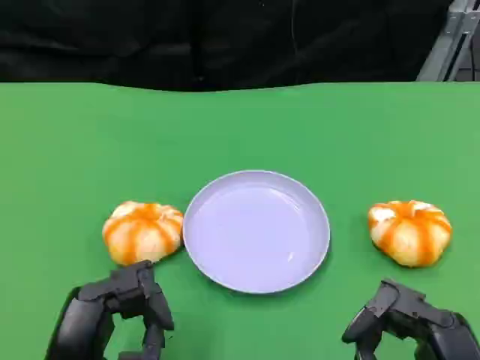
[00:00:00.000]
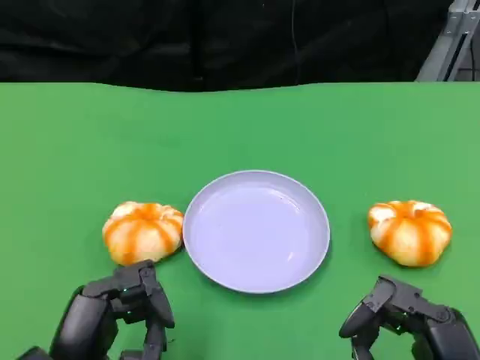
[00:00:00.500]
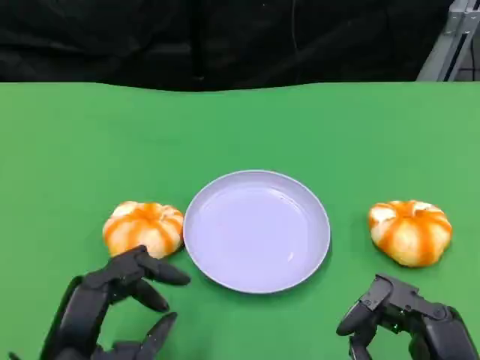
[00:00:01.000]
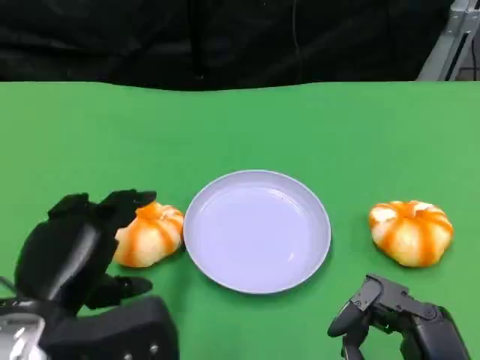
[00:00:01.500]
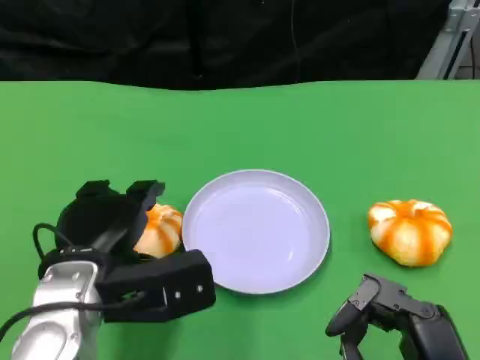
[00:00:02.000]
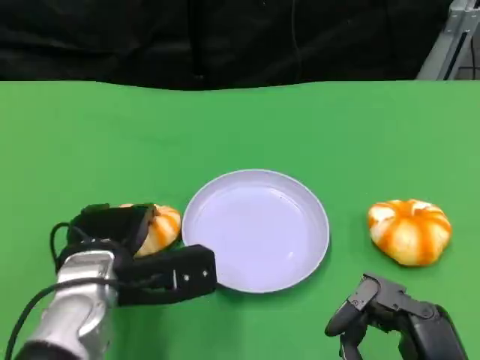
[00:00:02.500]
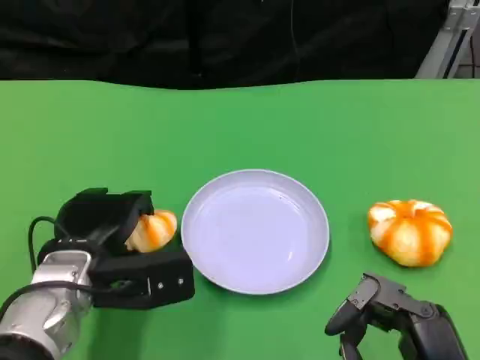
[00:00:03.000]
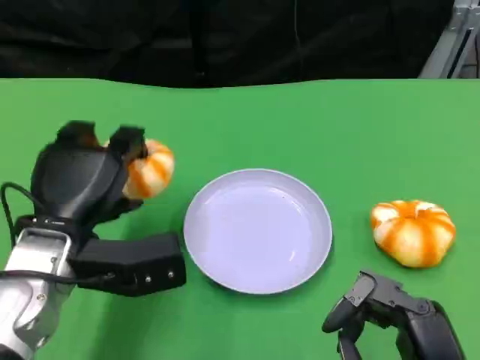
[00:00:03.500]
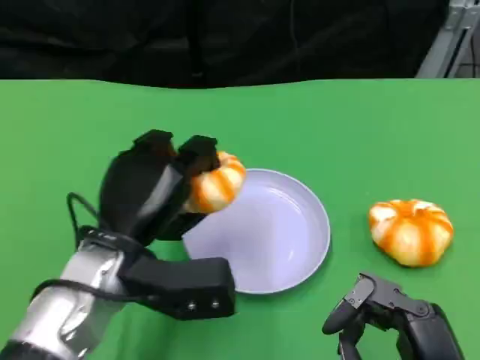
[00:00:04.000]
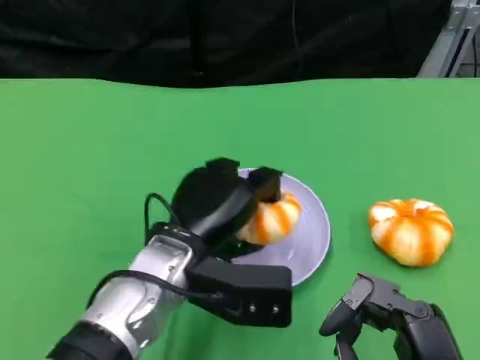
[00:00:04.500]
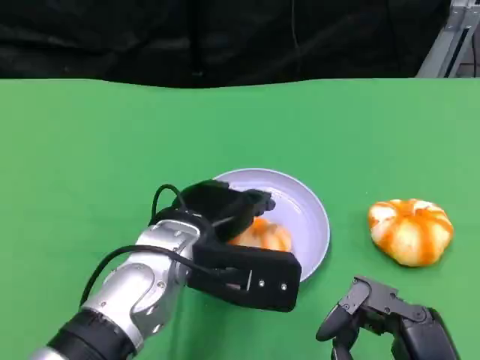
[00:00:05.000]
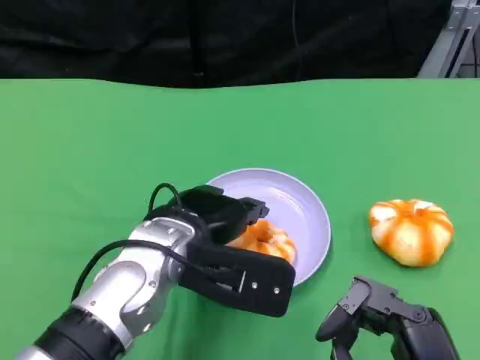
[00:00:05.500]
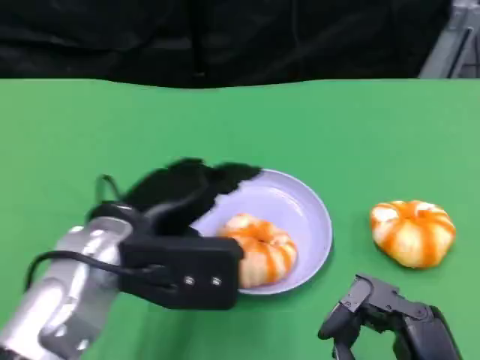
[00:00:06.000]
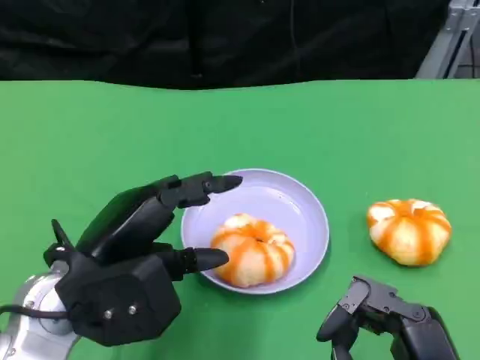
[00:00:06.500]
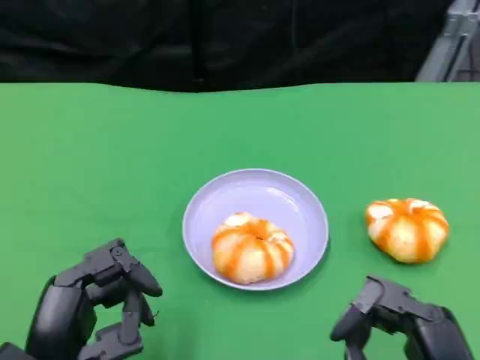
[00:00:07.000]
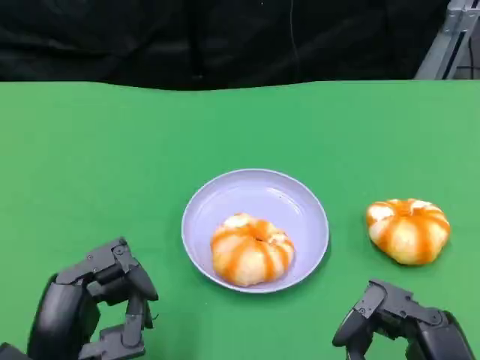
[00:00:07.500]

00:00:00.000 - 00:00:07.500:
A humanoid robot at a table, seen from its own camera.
Task of the whole recording: Grasp the bread from the table and place it into the plate.
00:00:00.000 - 00:00:02.000: The left hand moves forward, some 10 cm.
00:00:05.500 - 00:00:07.500: The left hand is displaced backward and to the left by roughly 15 cm.

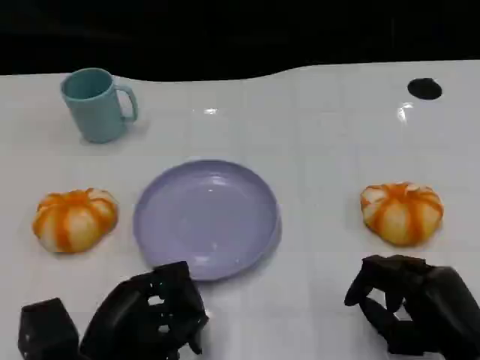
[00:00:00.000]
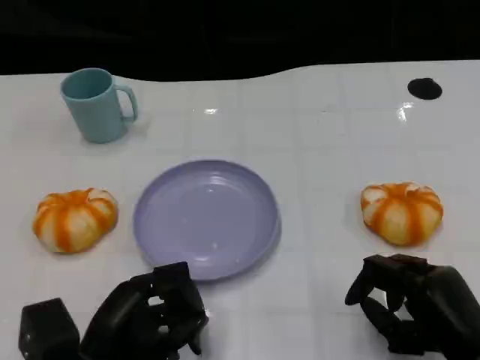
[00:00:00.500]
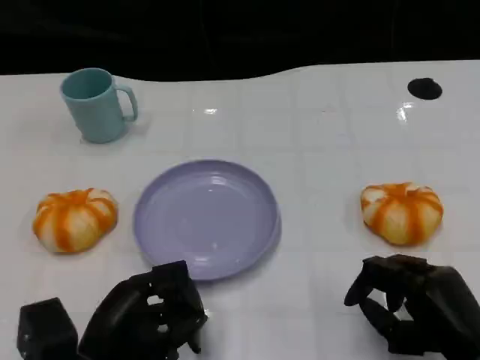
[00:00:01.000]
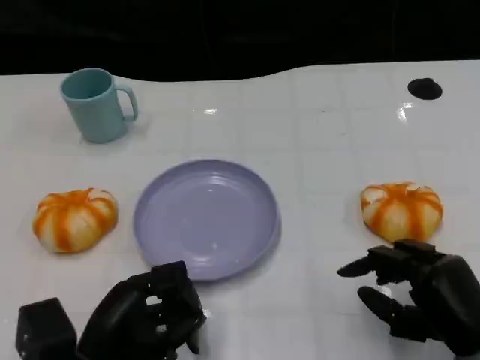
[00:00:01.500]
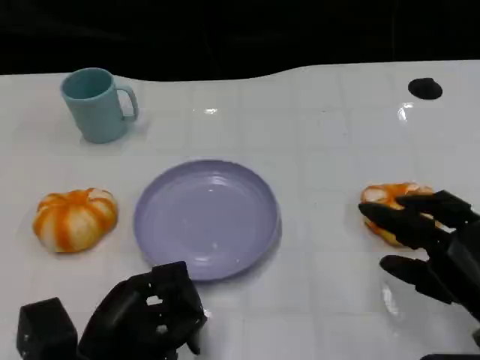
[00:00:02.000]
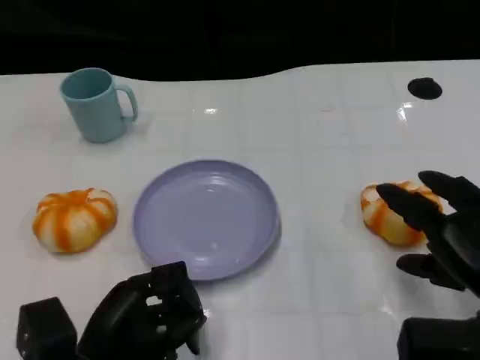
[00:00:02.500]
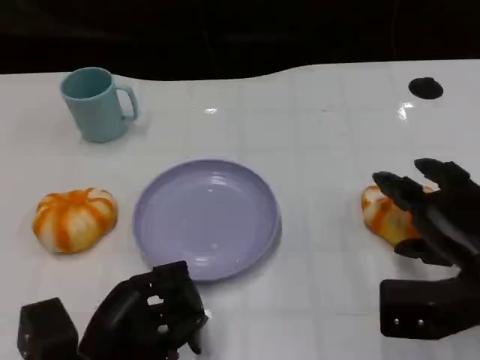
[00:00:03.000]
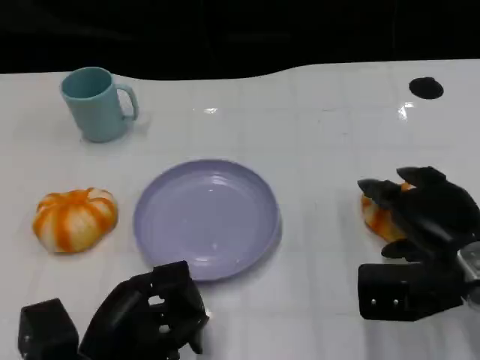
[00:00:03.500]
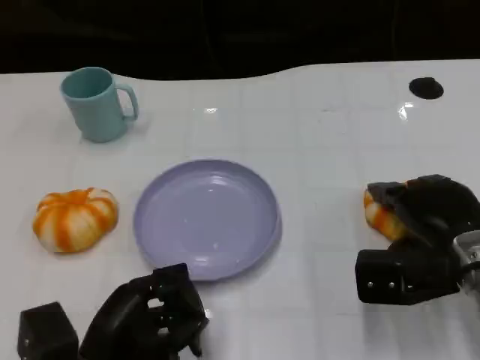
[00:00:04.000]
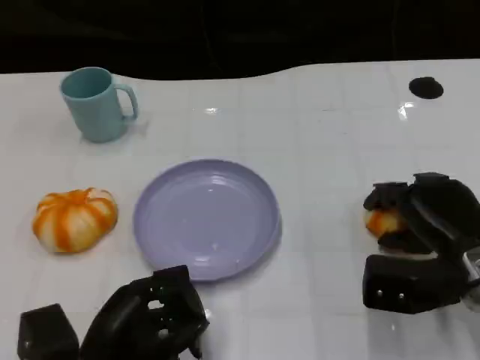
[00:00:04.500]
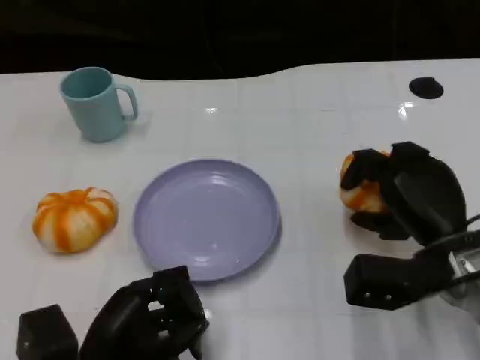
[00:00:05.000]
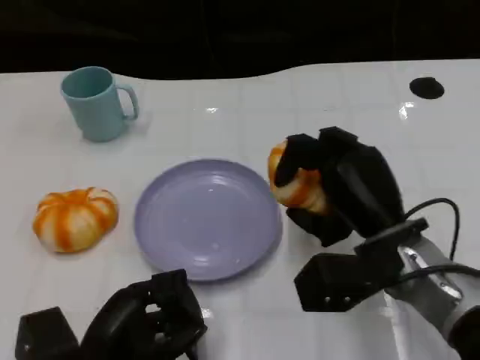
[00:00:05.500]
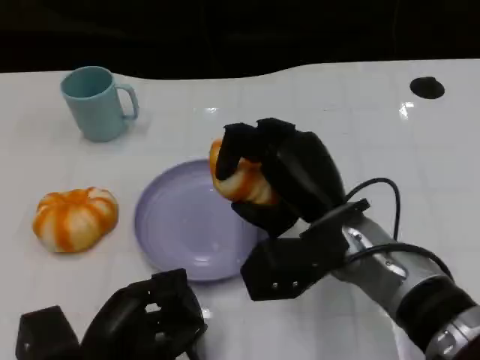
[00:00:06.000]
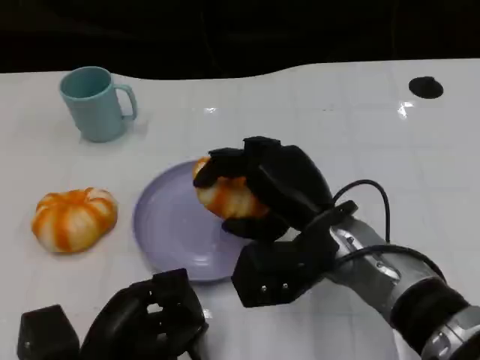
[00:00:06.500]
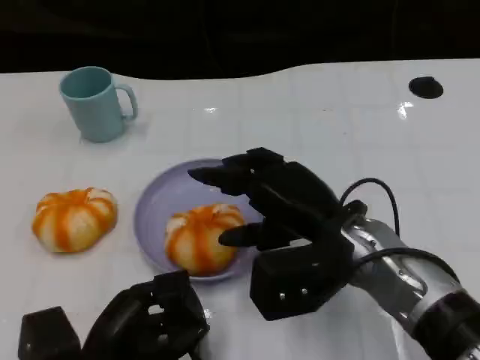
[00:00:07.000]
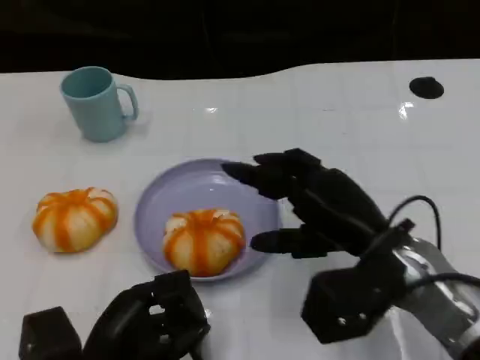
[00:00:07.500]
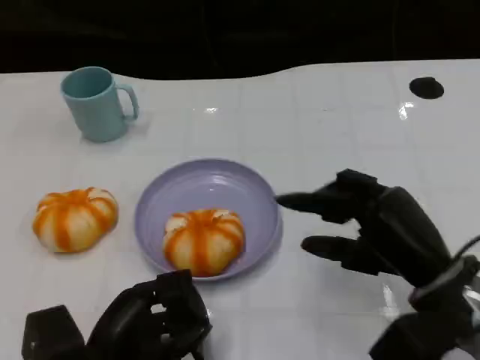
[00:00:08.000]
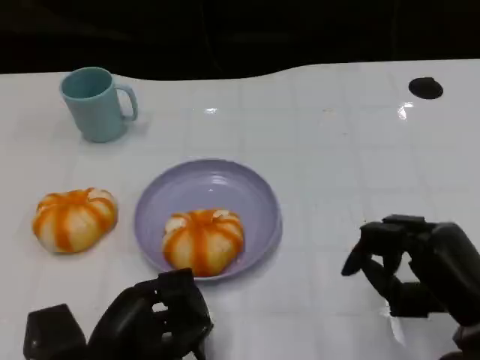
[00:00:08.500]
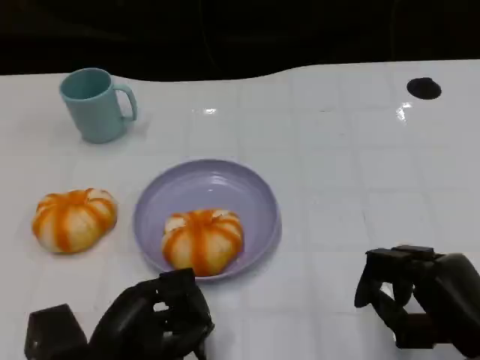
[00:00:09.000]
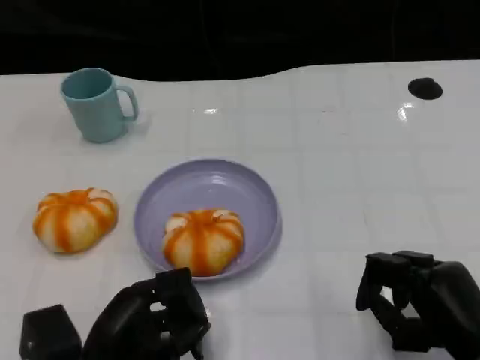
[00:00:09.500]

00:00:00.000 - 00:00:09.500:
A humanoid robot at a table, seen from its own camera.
Task of the whole recording: Grasp the bread from the table and place it into the plate.
00:00:00.000 - 00:00:02.000: The right hand shifts by about 5 cm.
00:00:02.000 - 00:00:04.000: The right hand goes some 10 cm forward.
00:00:04.000 - 00:00:05.500: The right hand shifts some 10 cm to the left.
00:00:07.500 - 00:00:09.500: The right hand travels to the right, backward and downward by about 15 cm.

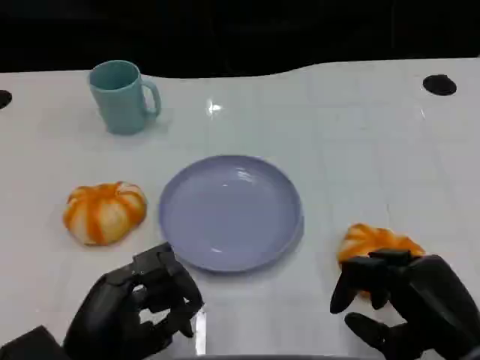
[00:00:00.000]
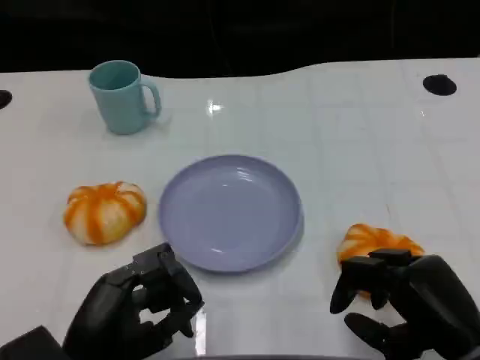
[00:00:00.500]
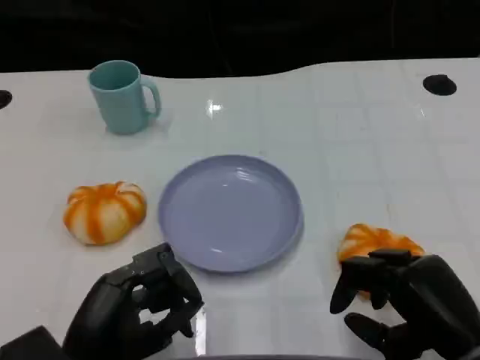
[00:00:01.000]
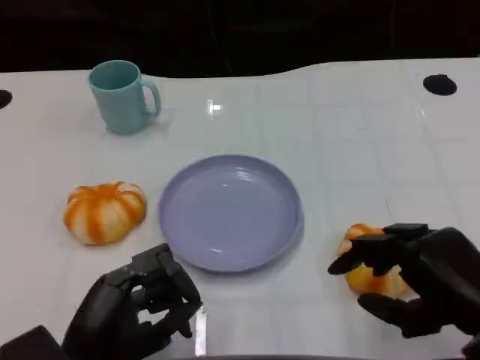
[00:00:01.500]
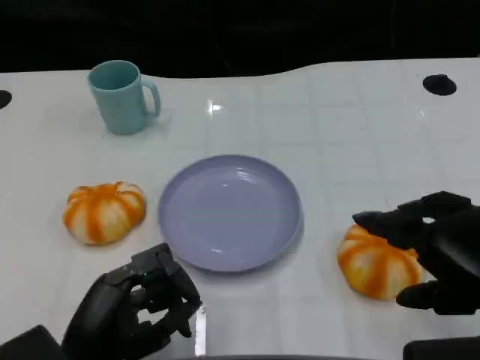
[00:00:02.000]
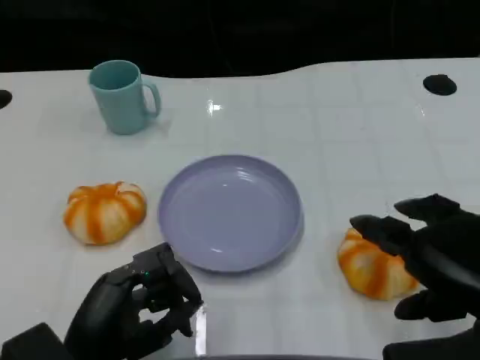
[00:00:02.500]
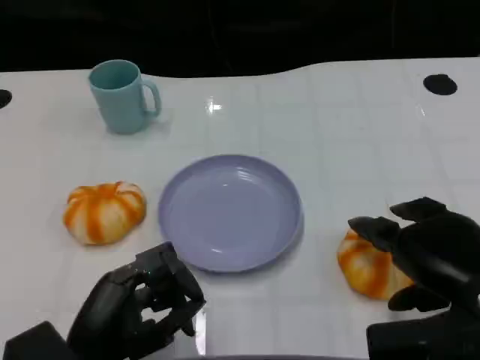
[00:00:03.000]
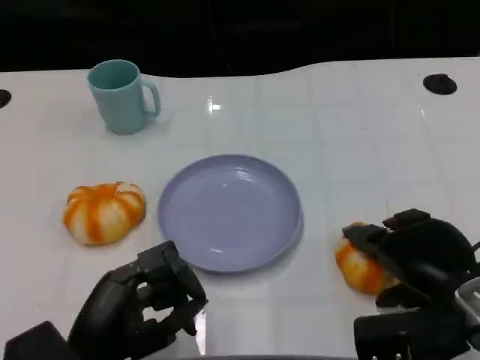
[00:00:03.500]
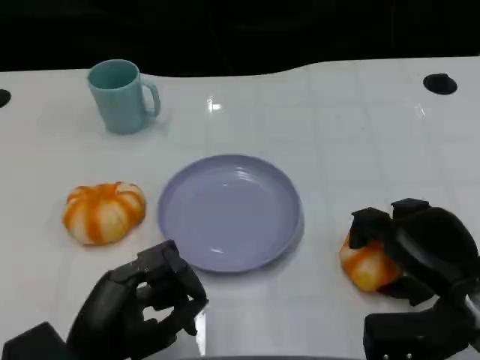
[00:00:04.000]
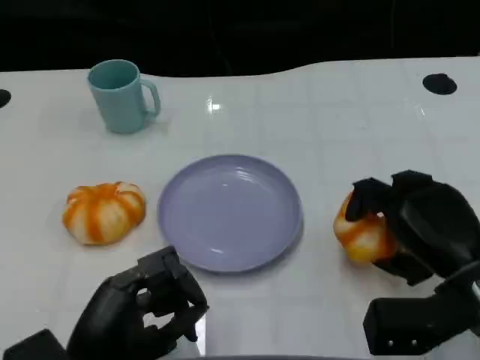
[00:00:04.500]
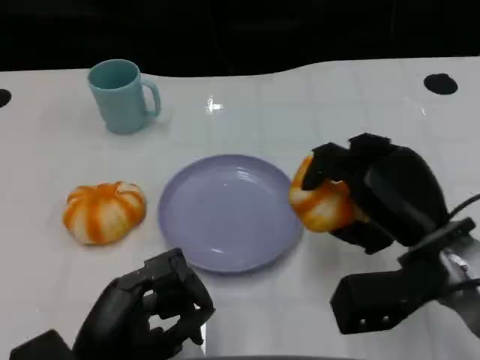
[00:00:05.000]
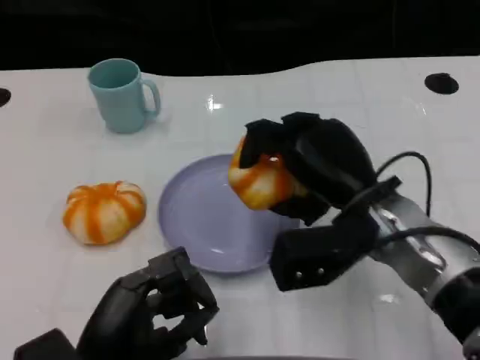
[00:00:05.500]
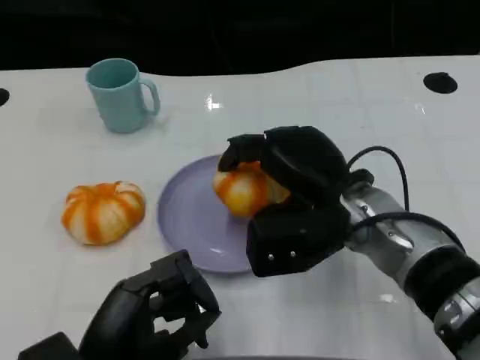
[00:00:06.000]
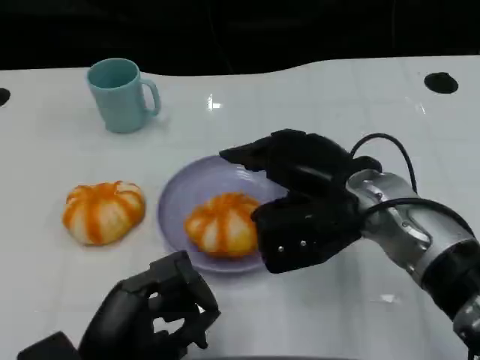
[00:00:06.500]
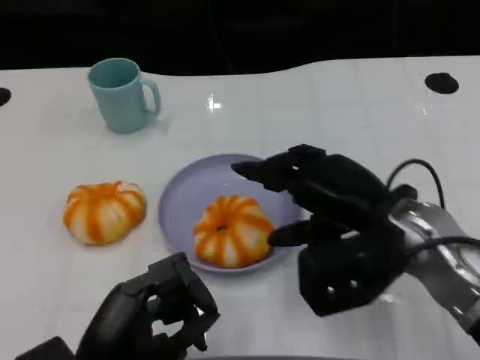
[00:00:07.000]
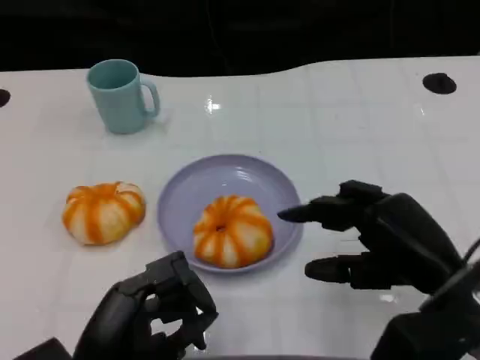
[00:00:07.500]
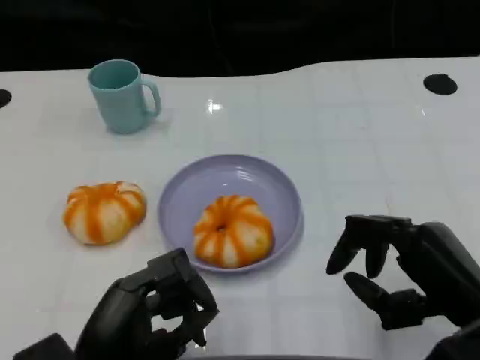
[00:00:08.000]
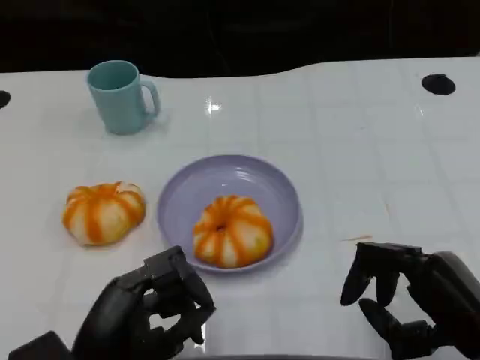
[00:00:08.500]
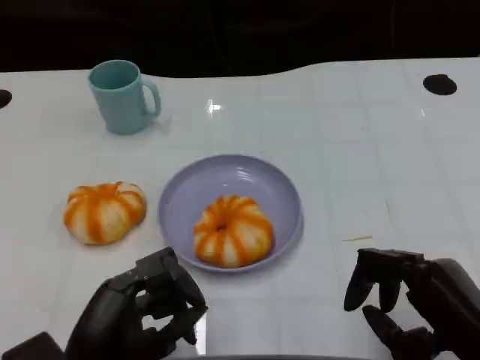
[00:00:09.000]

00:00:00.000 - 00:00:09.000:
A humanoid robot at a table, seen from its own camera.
Task of the whole recording: Grasp the bread from the table and place it into the plate.
00:00:00.000 - 00:00:02.000: The right hand travels upward by some 10 cm.
00:00:02.000 - 00:00:04.500: The right hand is displaced downward and forward by approximately 10 cm.
00:00:04.500 - 00:00:07.000: The right hand travels to the left and upward by some 10 cm.
00:00:07.000 - 00:00:09.000: The right hand travels backward, to the right and downward by roughly 15 cm.
